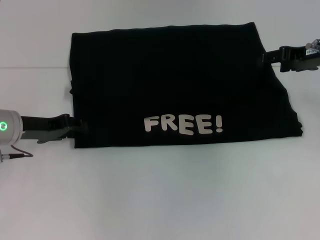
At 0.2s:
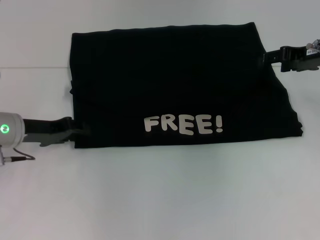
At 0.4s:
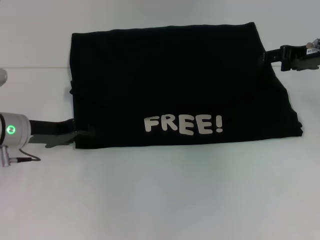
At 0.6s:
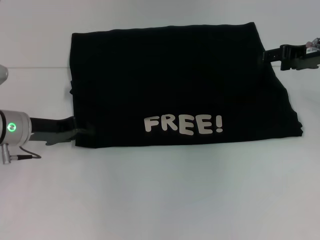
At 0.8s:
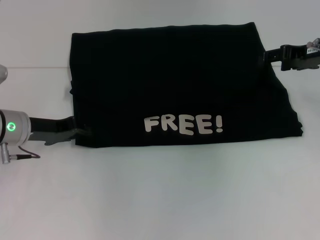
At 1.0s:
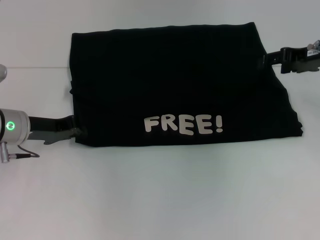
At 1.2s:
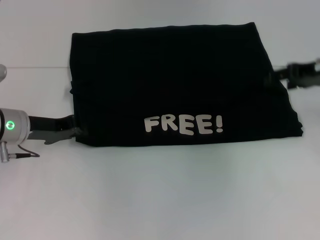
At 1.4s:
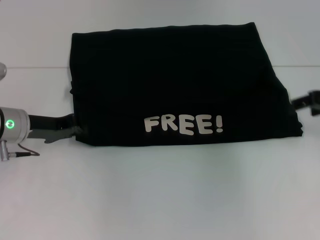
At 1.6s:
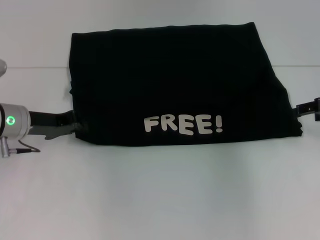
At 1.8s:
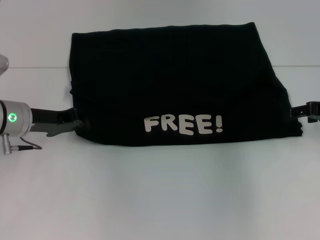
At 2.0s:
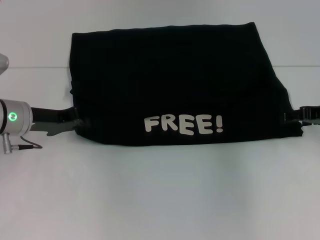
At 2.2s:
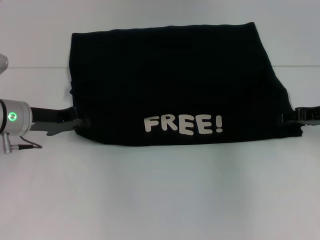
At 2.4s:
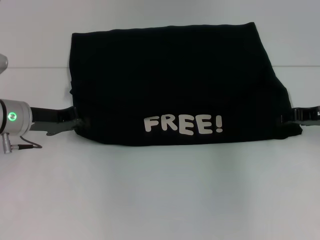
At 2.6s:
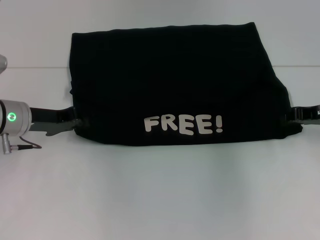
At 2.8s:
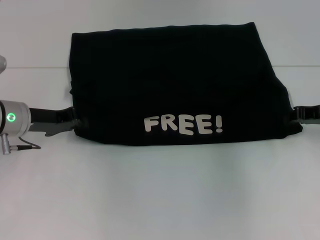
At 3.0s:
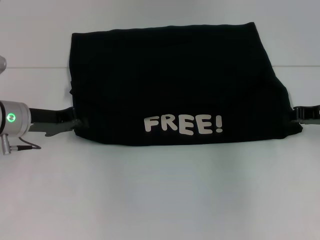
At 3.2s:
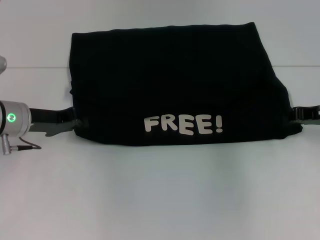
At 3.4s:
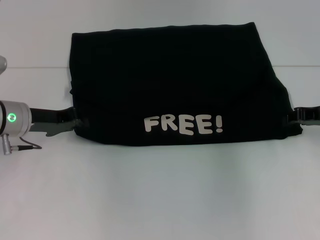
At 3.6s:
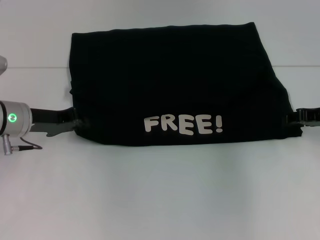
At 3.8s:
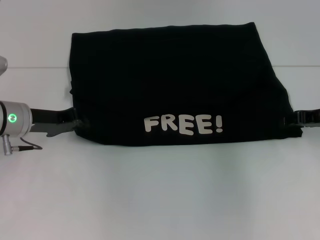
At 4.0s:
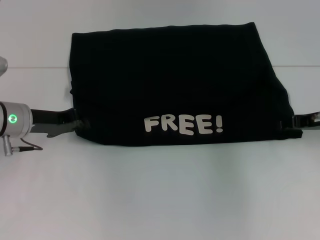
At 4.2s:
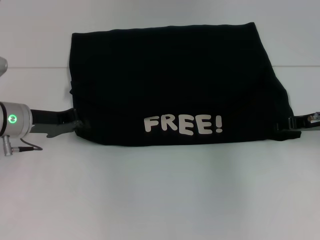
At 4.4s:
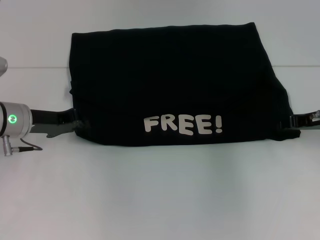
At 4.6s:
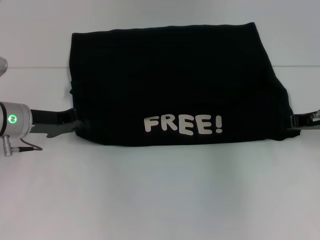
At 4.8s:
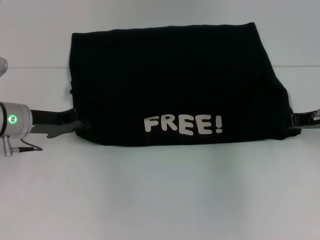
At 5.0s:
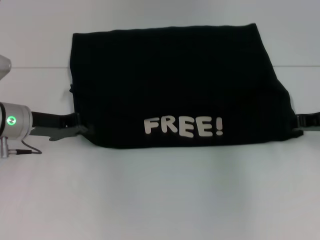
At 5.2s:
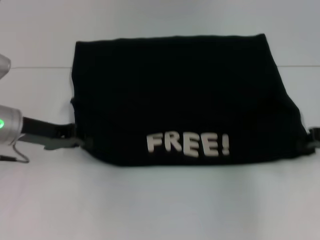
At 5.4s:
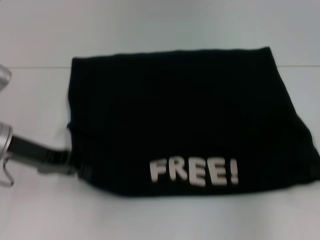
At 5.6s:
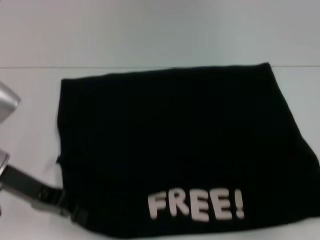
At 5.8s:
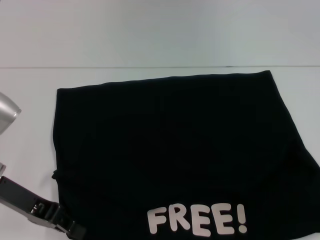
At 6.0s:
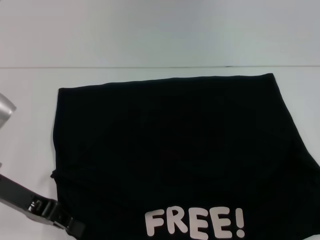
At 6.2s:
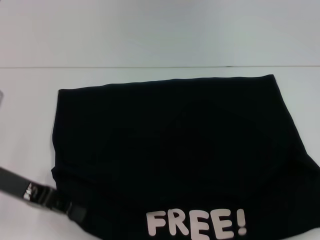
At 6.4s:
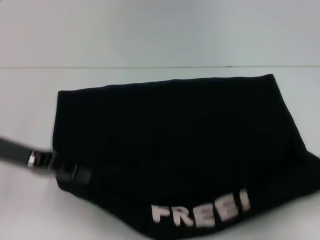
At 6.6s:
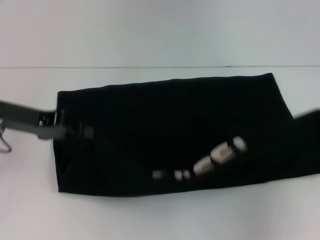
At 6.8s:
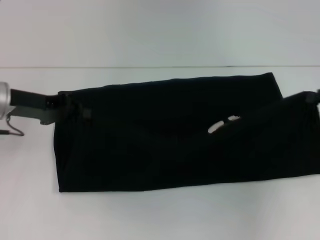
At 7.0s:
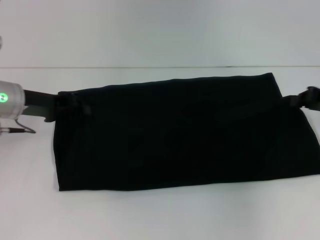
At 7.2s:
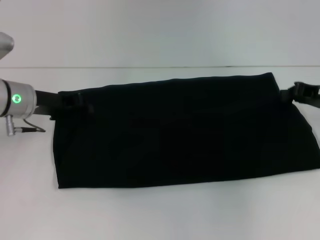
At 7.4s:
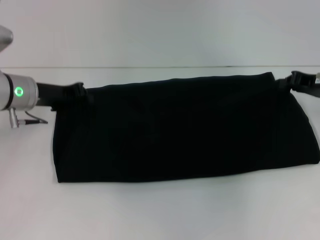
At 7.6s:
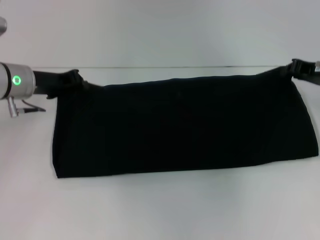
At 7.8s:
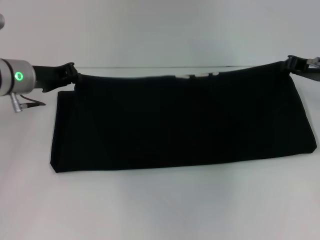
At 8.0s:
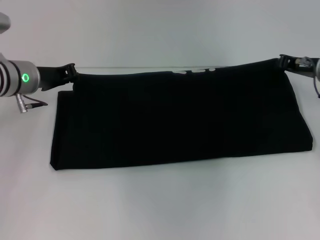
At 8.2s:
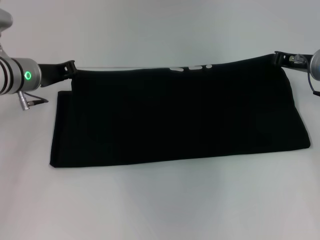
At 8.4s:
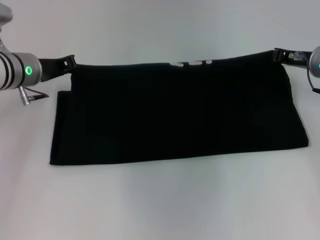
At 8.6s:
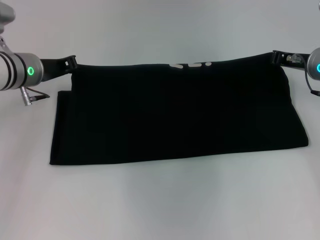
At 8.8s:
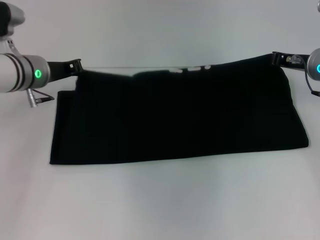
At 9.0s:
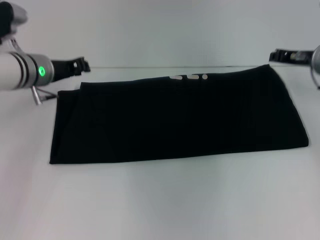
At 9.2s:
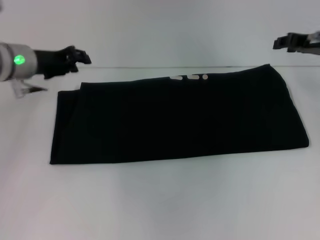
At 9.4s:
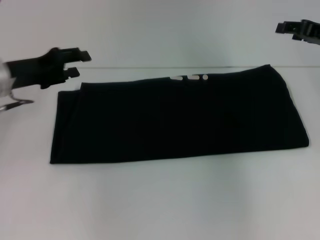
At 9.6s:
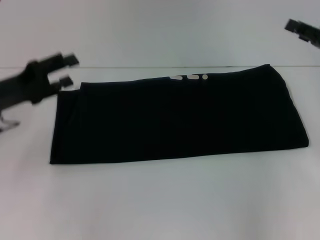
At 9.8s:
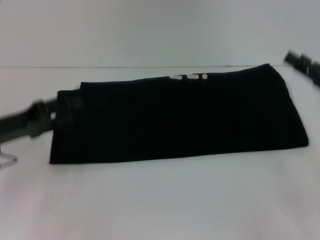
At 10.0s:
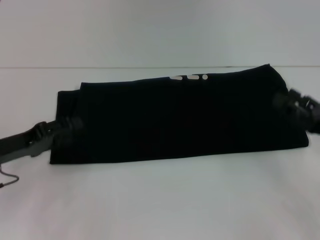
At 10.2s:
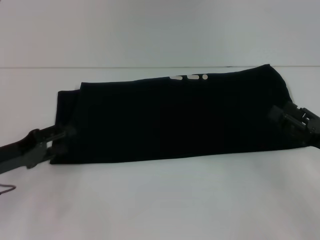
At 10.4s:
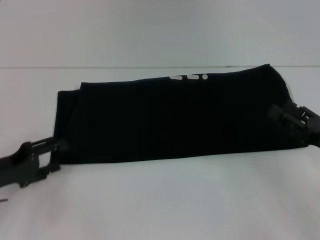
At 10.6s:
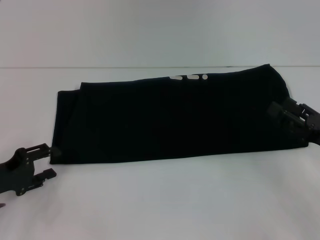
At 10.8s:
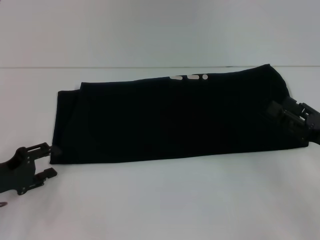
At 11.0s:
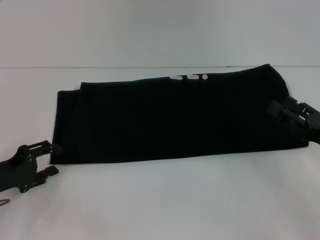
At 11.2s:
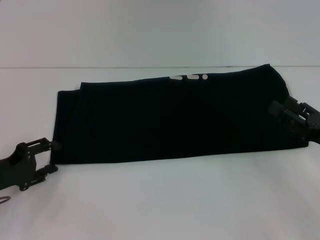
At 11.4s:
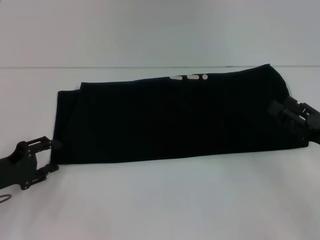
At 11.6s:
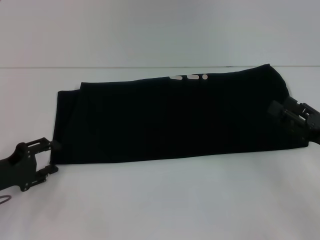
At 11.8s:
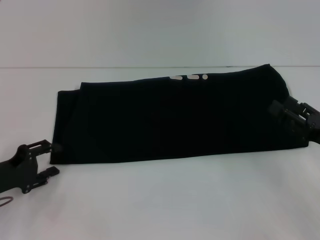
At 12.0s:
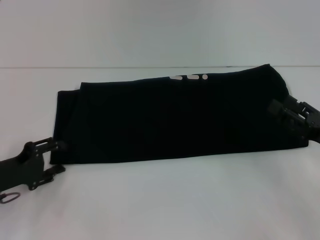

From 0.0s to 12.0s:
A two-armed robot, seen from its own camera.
Step, from 0.0s to 6.0s: Pull the clothes with your left hand.
Step, from 0.0s to 6.0s: Pull the clothes with your right hand.
Step, from 6.2s to 8.8s: Fold the clothes with your right hand.
From 0.0s to 1.6s: The left gripper closes up, while the right gripper moves to the right, roughly 5 cm.
From 1.6s to 3.0s: The right gripper closes.
From 3.0s to 4.4s: The grippers move only a little.
From 4.4s to 6.0s: The right gripper is displaced backward and to the right by about 15 cm, and closes its fingers. Meanwhile the left gripper shifts about 10 cm backward.
From 6.0s to 7.6s: The two grippers go about 15 cm forward.
From 7.6s to 9.0s: The grippers move only a little.
From 9.0s to 10.4s: The left gripper goes approximately 20 cm backward, to the left and downward, and opens up, while the right gripper heads backward and downward, covering roughly 20 cm, and opens its fingers.
From 10.4s to 12.0s: The grippers stay close to where they were, moving slightly.

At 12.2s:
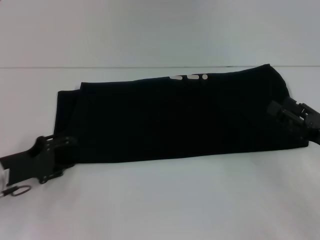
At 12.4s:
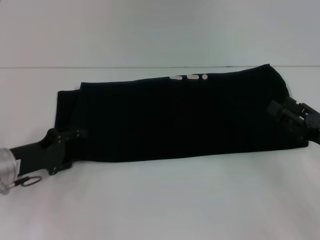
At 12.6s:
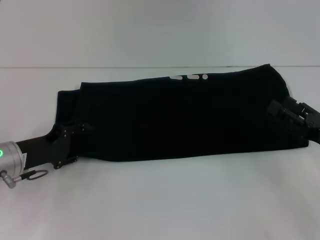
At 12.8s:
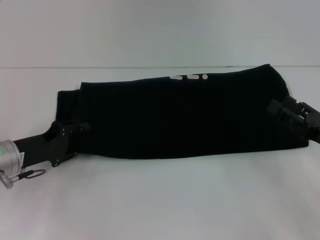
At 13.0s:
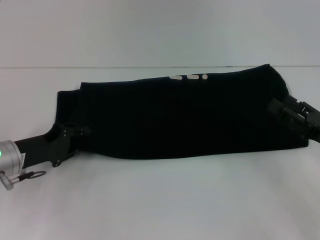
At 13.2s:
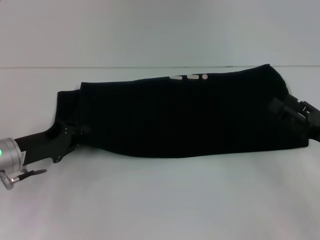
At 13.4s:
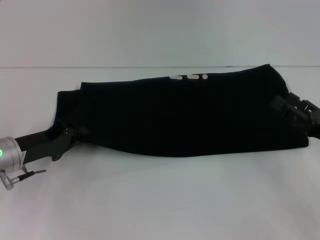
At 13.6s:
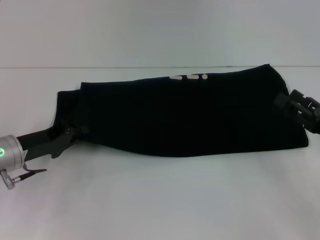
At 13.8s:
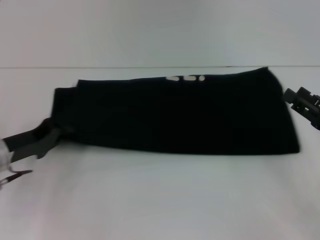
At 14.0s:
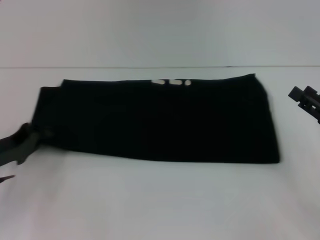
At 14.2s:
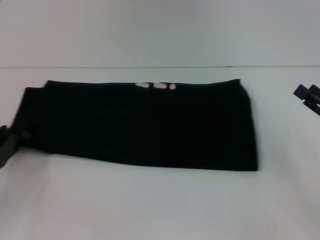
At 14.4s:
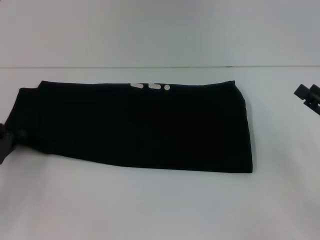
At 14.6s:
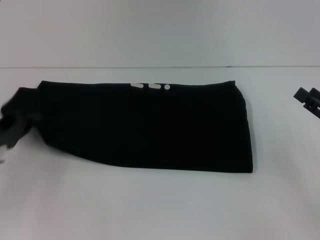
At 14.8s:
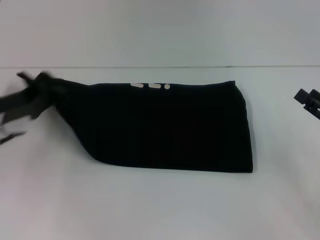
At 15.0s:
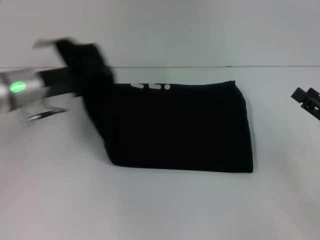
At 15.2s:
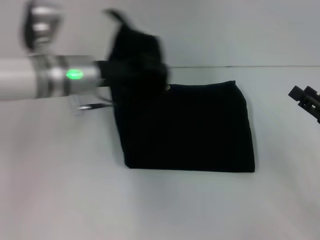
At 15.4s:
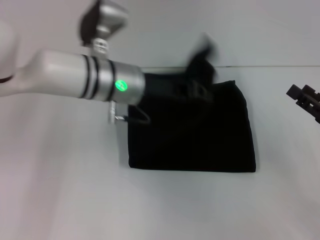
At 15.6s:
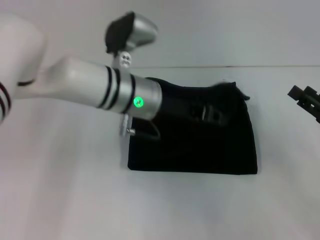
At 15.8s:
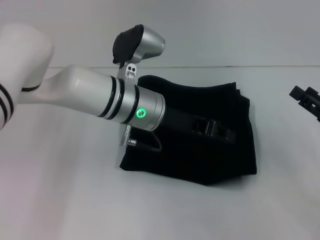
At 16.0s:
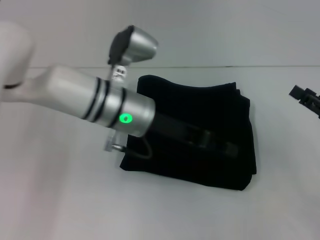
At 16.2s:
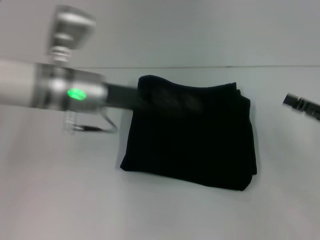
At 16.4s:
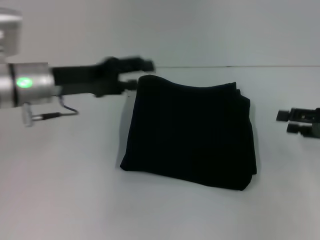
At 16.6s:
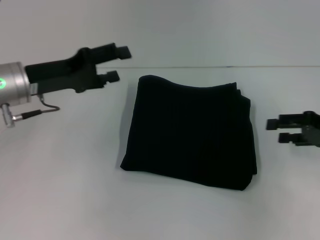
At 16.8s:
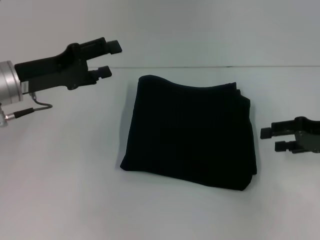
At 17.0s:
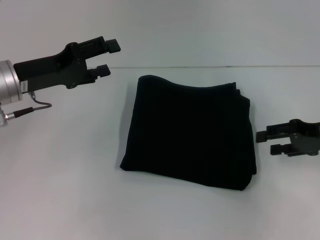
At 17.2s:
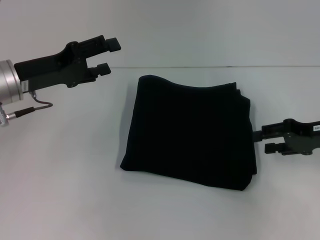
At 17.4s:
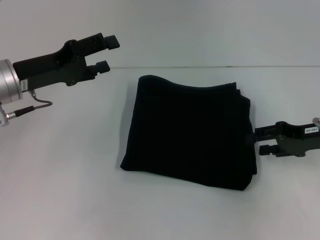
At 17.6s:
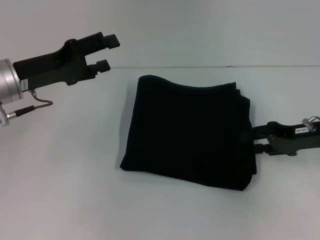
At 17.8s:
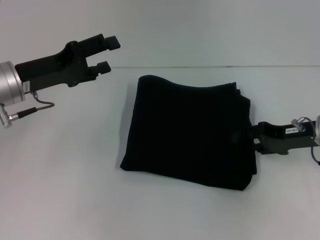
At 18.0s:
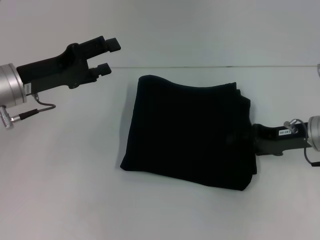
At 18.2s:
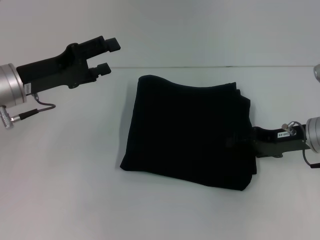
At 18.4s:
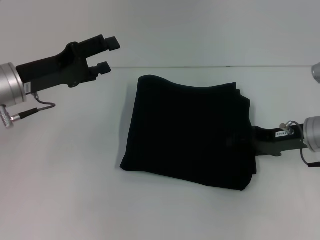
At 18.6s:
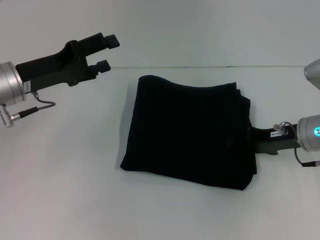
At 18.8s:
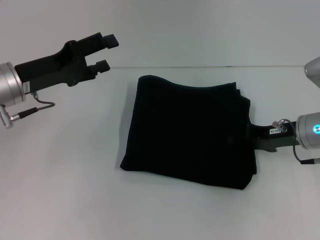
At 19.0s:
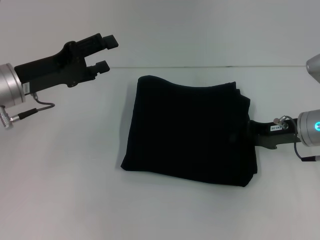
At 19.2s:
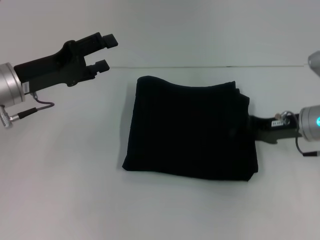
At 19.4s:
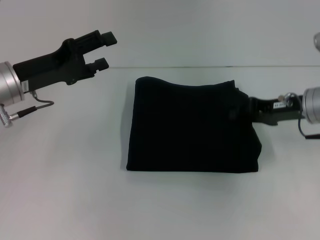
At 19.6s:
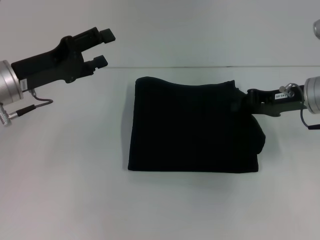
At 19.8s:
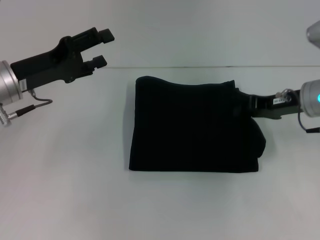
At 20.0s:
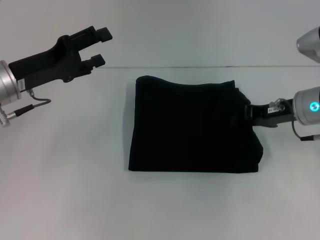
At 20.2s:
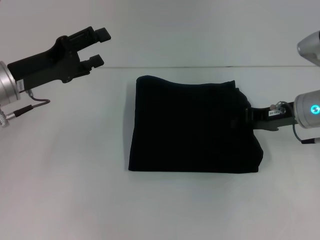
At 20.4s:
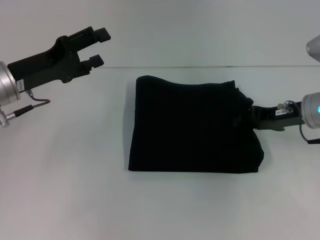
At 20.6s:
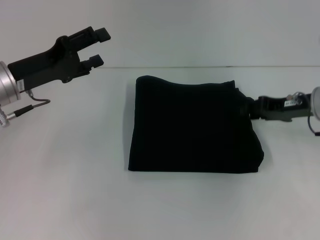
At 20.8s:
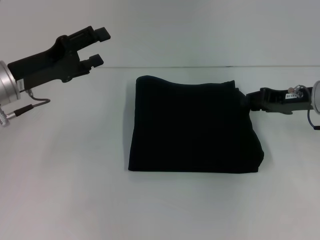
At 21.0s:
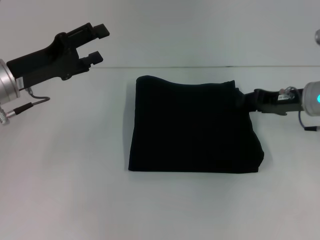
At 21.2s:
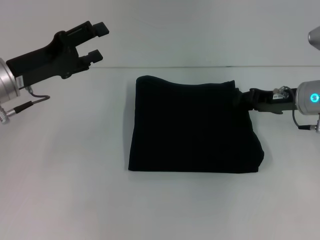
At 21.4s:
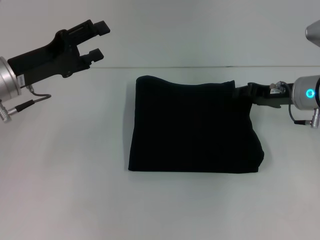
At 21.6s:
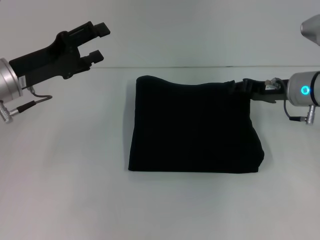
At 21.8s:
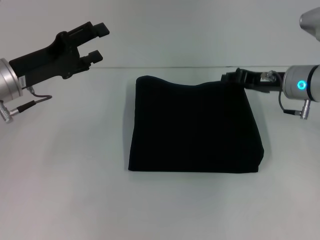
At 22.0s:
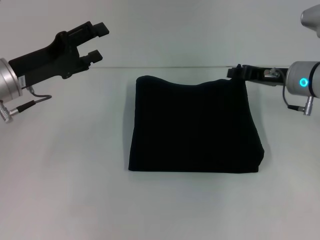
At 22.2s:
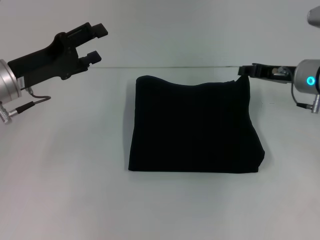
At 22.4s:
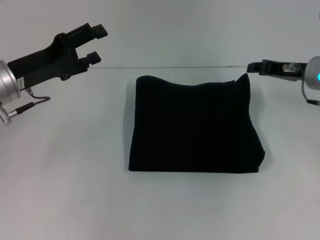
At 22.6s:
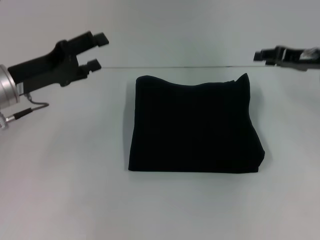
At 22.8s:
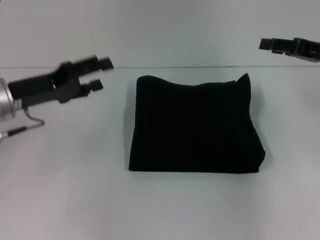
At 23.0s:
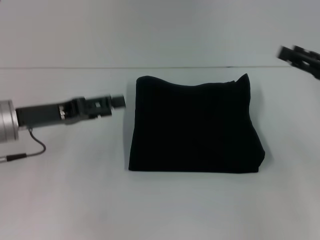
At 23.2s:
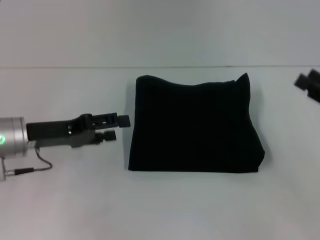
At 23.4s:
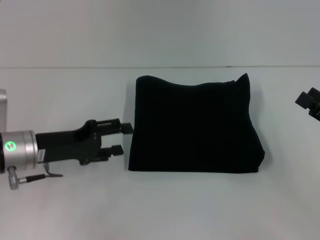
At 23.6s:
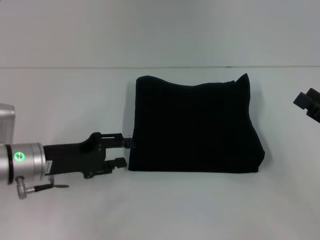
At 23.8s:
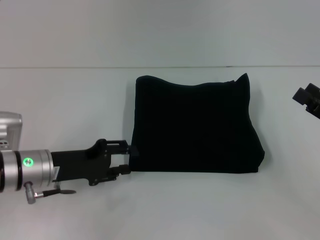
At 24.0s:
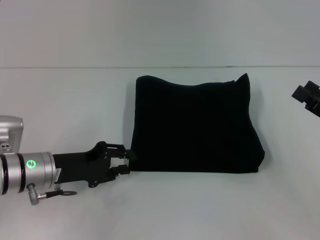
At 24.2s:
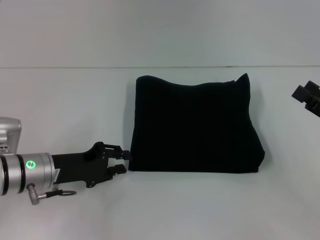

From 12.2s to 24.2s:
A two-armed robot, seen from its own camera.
Step, from 12.2s to 15.8s: Fold the clothes with your left hand.
From 12.2s to 13.8s: The left gripper closes.
From 13.8s to 15.2s: The left gripper is displaced to the right, upward and forward by approximately 20 cm.
From 15.2s to 16.6s: The left gripper heads to the left, covering approximately 10 cm, and opens its fingers, while the right gripper heads forward, covering some 5 cm.
From 16.6s to 18.2s: The right gripper moves to the left, roughly 5 cm.
From 18.2s to 19.8s: The right gripper moves approximately 5 cm, and closes.
From 19.8s to 21.2s: The right gripper opens.
From 21.2s to 22.6s: The right gripper ends up about 5 cm from where it was.
From 22.6s to 24.2s: The left gripper goes approximately 10 cm downward, and closes its fingers. Meanwhile the right gripper heads backward, covering approximately 15 cm, and opens up.
